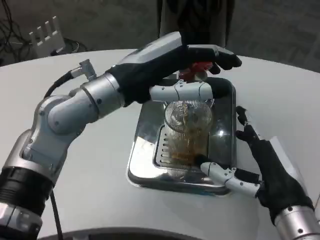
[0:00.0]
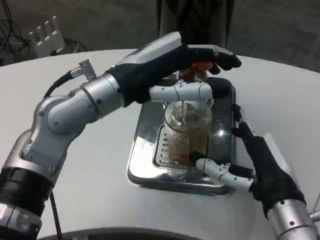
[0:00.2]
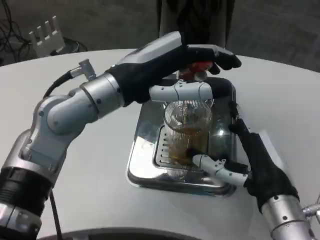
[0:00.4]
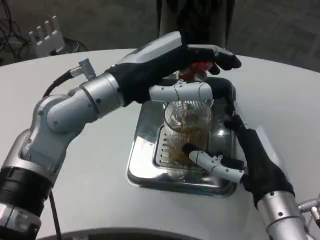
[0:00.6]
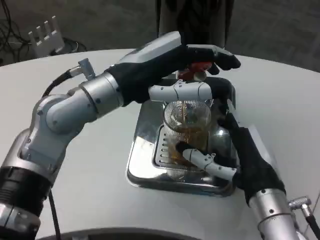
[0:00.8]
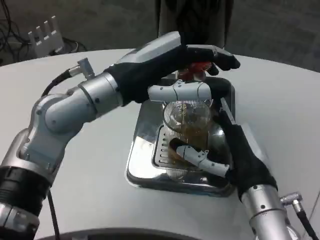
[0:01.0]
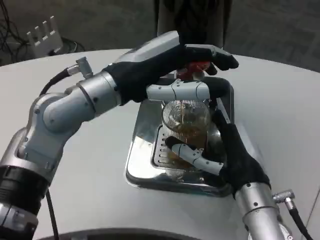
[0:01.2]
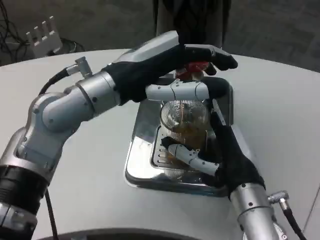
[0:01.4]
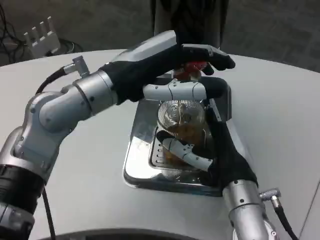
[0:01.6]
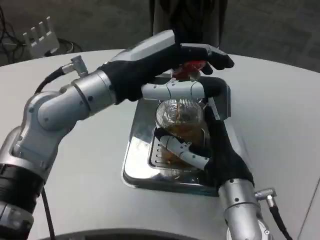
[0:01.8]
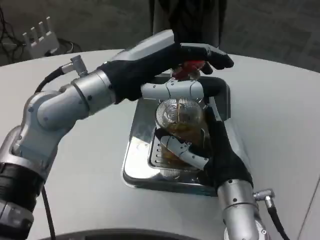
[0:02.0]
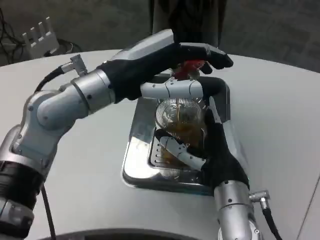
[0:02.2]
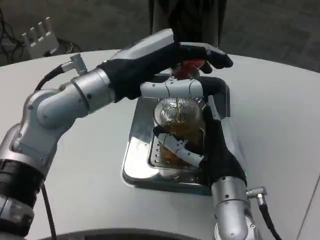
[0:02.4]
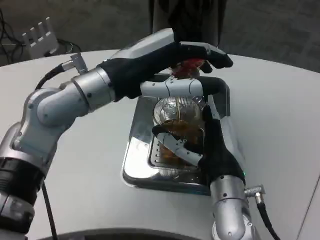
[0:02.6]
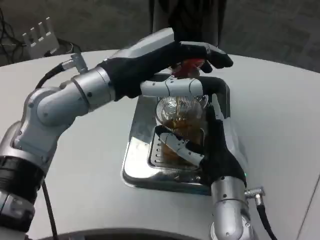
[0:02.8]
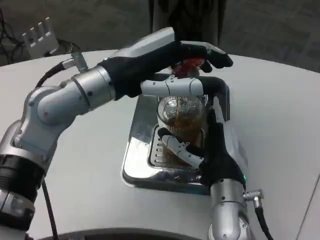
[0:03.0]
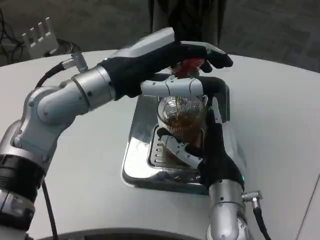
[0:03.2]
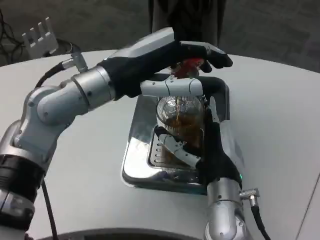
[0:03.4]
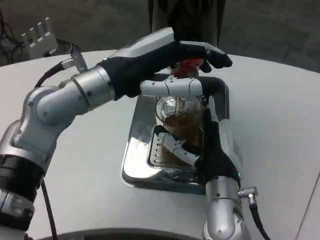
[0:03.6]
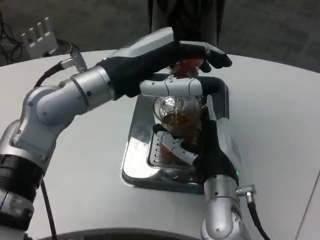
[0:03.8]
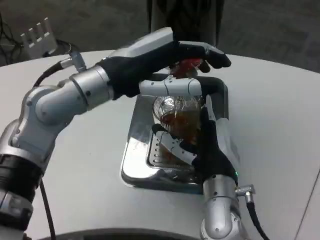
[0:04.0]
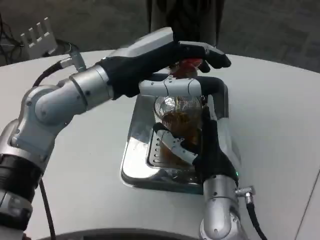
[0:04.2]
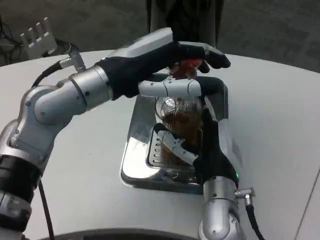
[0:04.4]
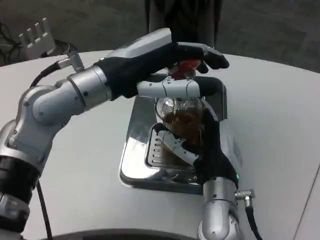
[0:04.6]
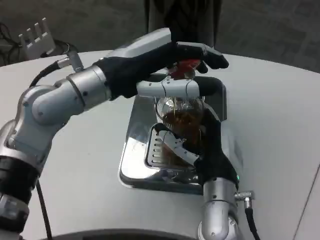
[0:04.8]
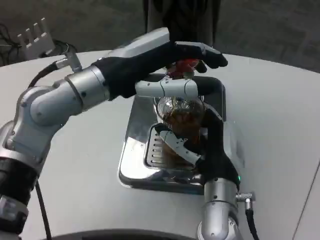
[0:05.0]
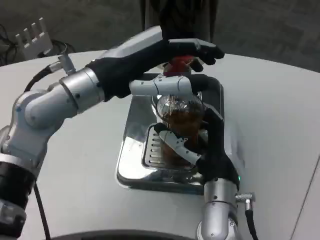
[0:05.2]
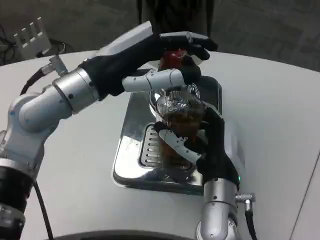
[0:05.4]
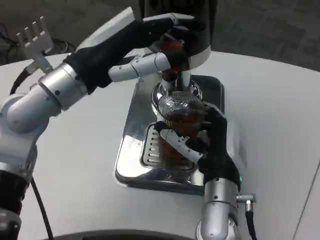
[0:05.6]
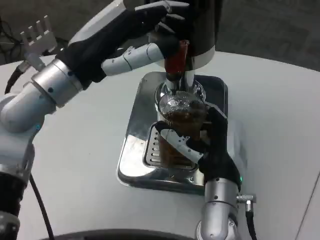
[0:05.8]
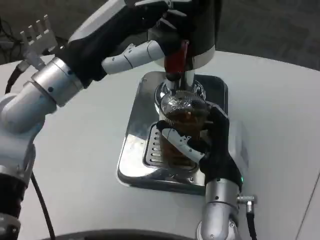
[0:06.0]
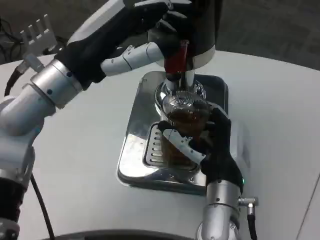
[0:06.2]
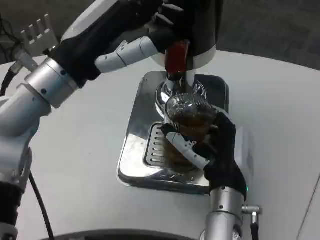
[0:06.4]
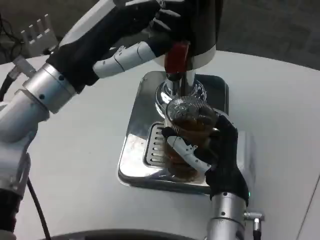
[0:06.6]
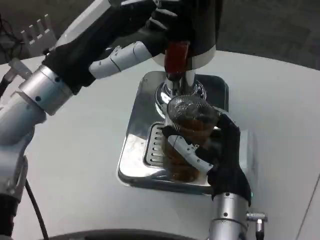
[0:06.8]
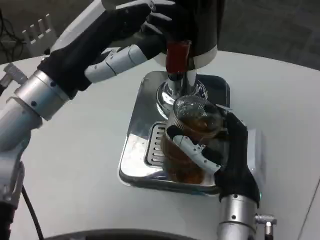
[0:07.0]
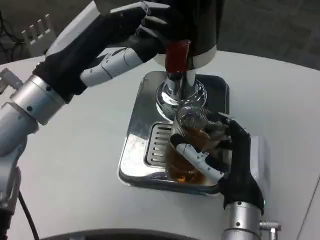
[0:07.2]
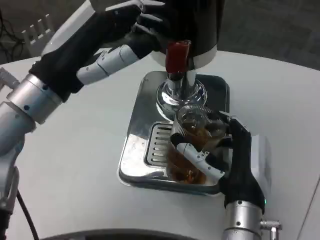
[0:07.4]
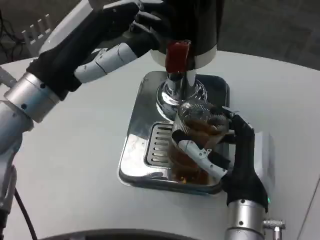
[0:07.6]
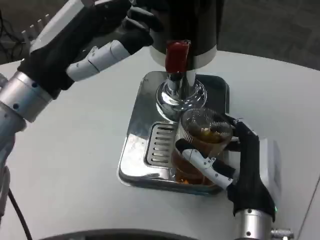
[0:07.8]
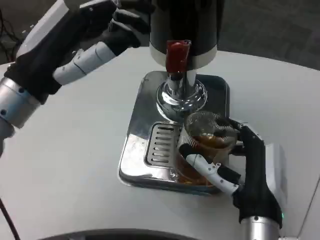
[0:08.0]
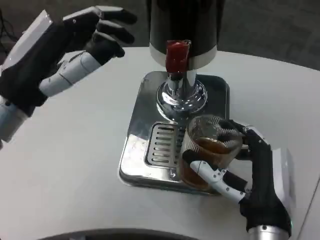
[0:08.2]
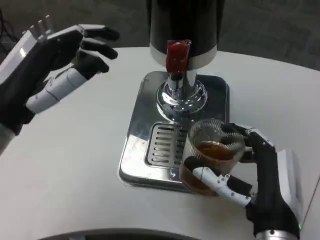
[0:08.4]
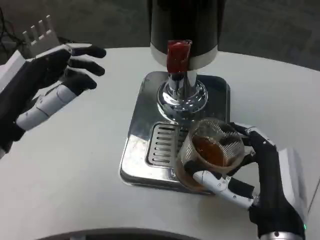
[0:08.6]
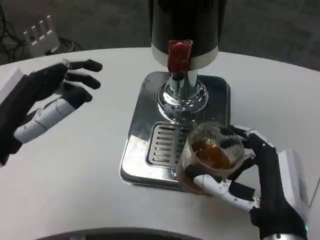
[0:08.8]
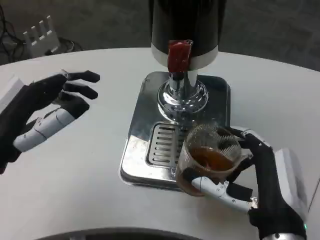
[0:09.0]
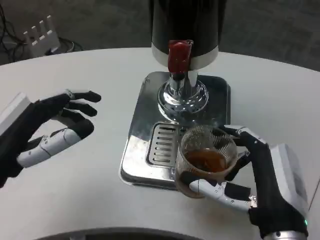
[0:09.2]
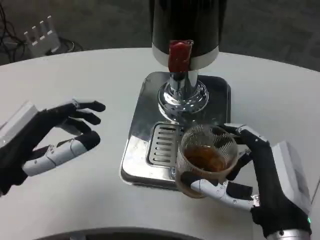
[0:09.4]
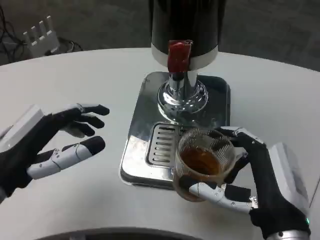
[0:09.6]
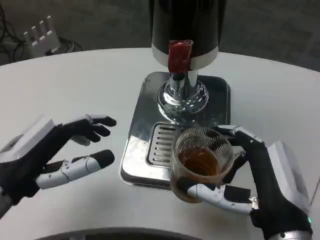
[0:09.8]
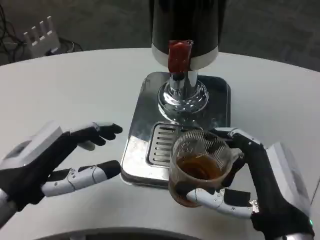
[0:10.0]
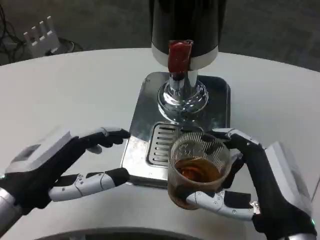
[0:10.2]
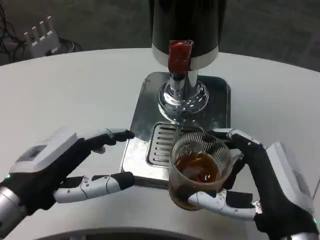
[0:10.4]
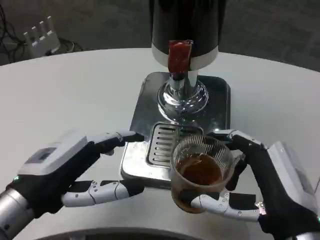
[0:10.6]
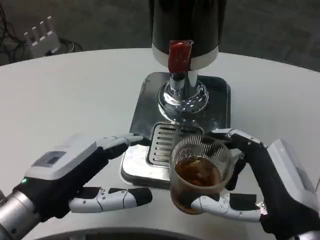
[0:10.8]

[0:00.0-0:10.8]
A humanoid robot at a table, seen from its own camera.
Task of the whole recording: Grasp the cup under the faucet to collect the drink, then remove the cup.
0:00.0 to 0:01.6: The right hand goes some 10 cm to the left and forward.
0:03.0 to 0:04.6: The hands make only small movements.
0:06.2 to 0:07.8: The right hand shifts by roughly 5 cm.
0:07.8 to 0:09.2: The right hand shifts by about 5 cm. The left hand travels downward, backward and to the left by roughly 10 cm.

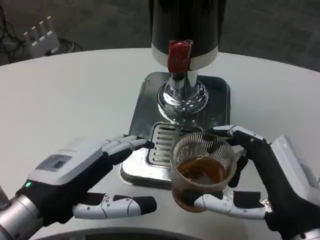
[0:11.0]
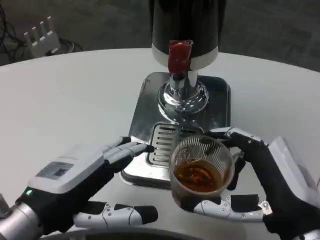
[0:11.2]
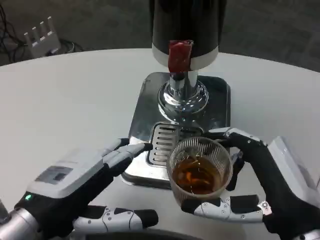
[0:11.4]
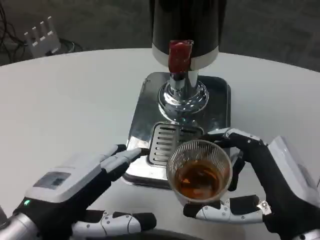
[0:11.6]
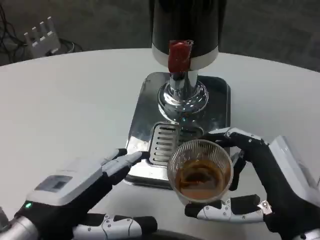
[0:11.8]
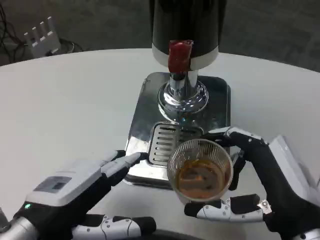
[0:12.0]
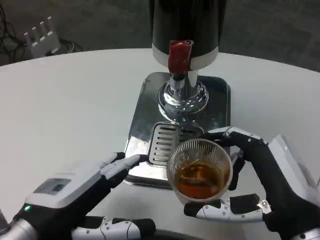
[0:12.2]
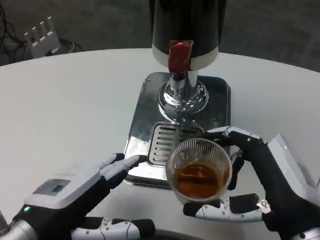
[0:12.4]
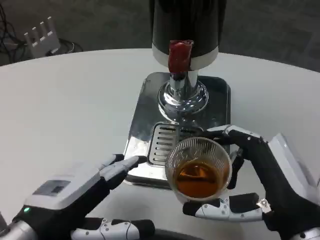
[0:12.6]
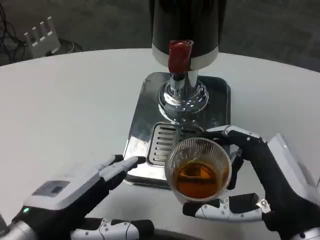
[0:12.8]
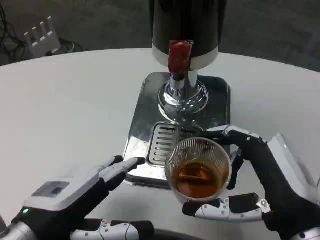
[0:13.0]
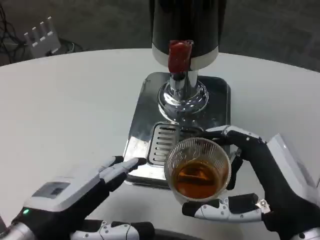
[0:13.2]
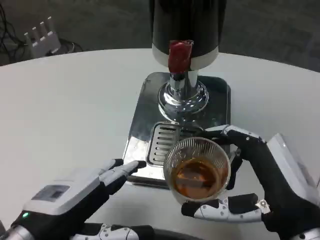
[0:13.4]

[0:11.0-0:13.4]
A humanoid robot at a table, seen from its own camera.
Task of the whole recording: Grasp the cup under the faucet to collect the drink, then remove the cup.
0:11.0 to 0:12.2: There are only small adjustments of the hands.
0:12.2 to 0:13.4: The two hands keep their place.

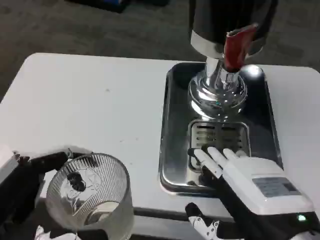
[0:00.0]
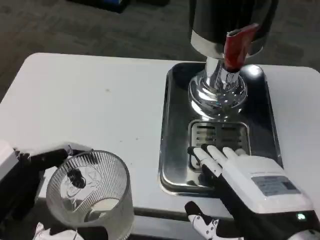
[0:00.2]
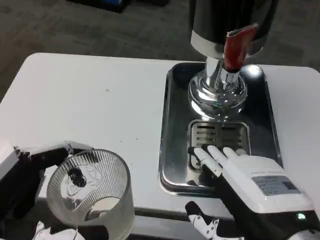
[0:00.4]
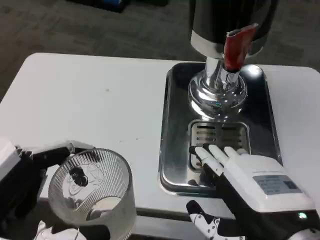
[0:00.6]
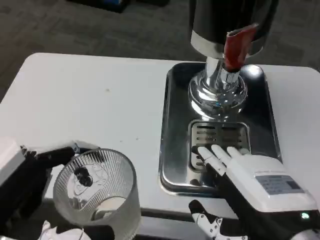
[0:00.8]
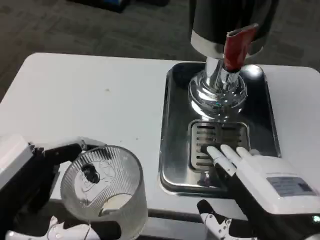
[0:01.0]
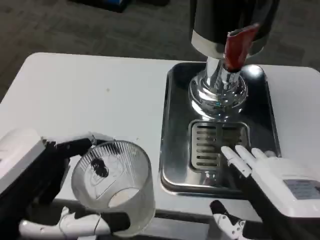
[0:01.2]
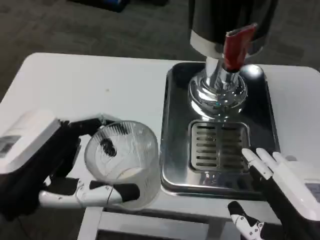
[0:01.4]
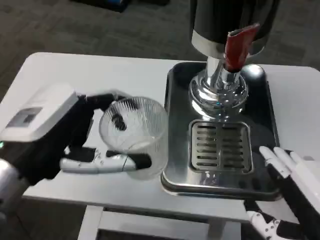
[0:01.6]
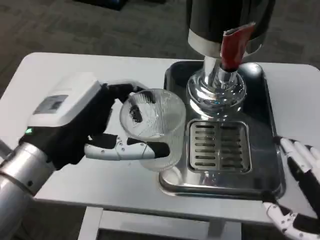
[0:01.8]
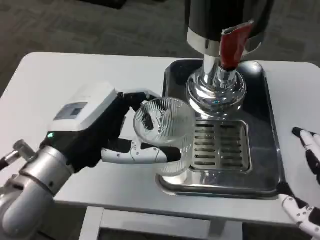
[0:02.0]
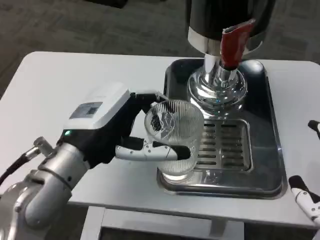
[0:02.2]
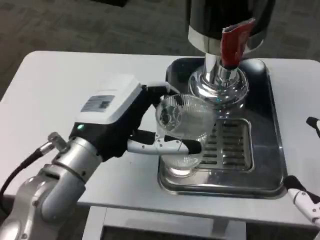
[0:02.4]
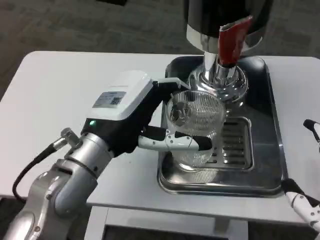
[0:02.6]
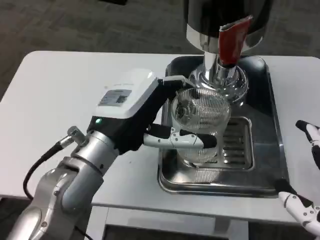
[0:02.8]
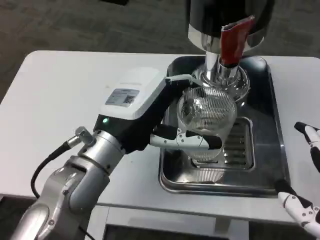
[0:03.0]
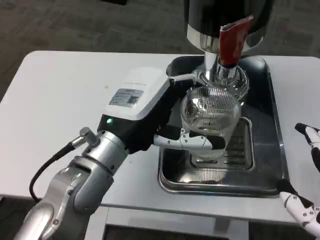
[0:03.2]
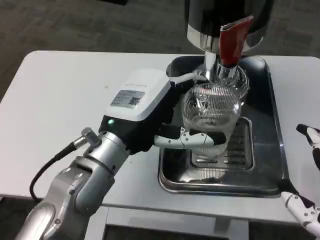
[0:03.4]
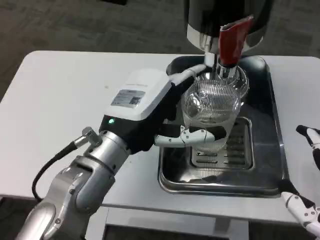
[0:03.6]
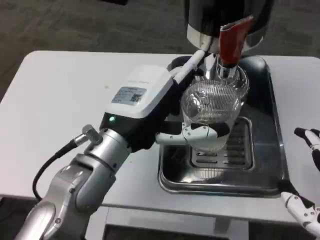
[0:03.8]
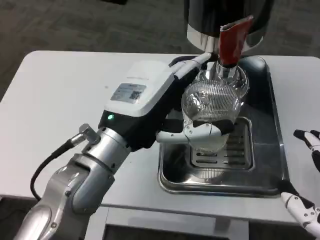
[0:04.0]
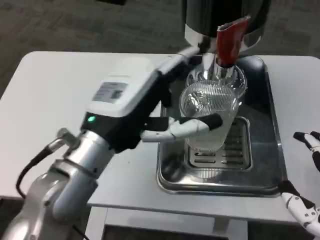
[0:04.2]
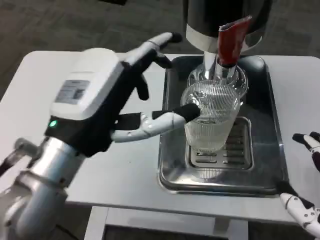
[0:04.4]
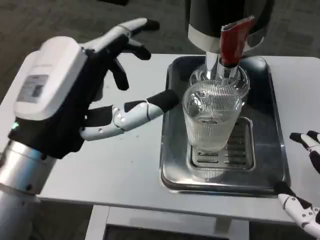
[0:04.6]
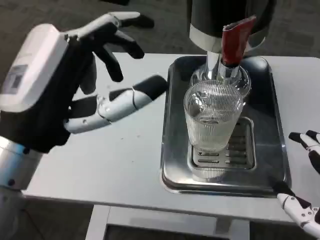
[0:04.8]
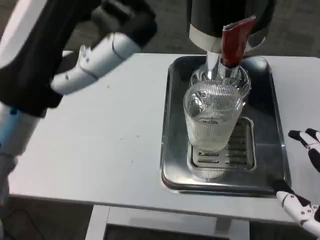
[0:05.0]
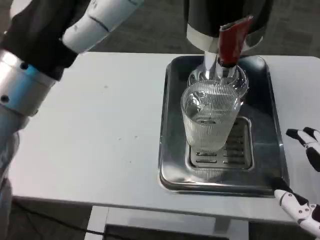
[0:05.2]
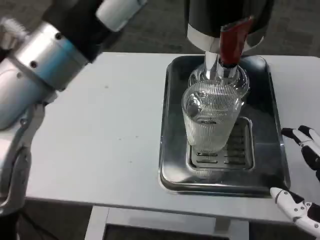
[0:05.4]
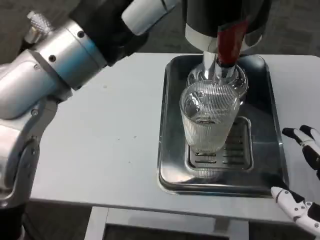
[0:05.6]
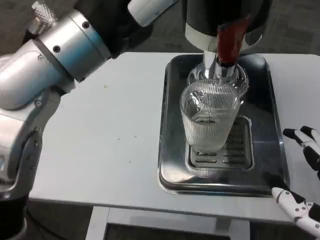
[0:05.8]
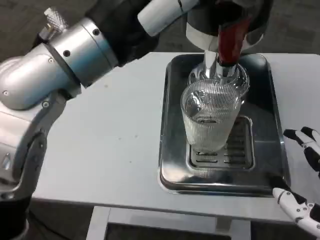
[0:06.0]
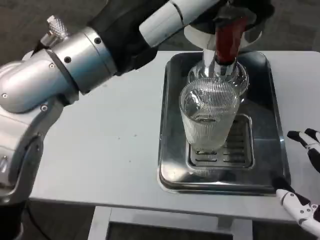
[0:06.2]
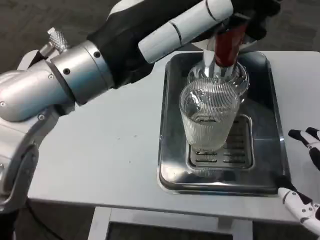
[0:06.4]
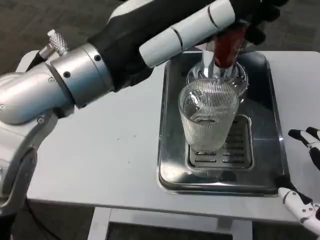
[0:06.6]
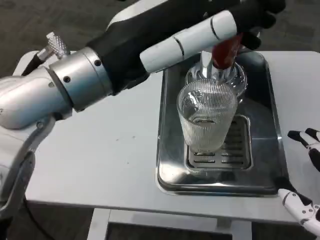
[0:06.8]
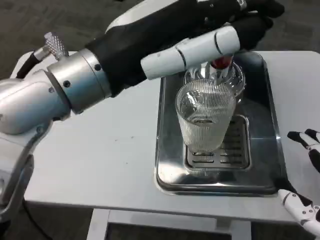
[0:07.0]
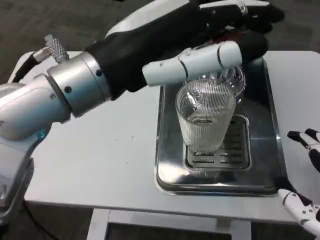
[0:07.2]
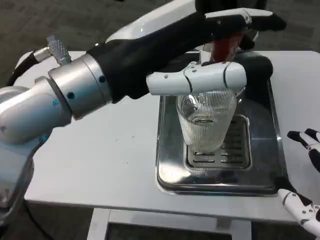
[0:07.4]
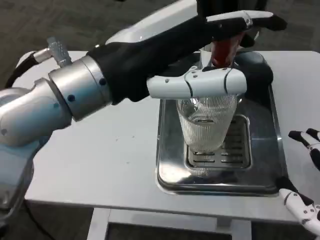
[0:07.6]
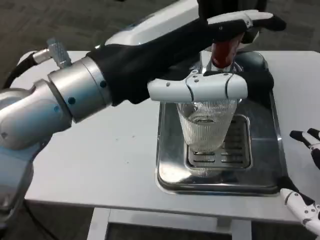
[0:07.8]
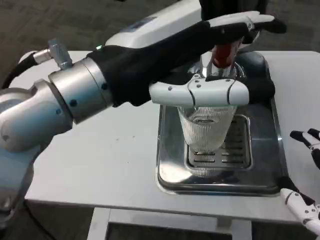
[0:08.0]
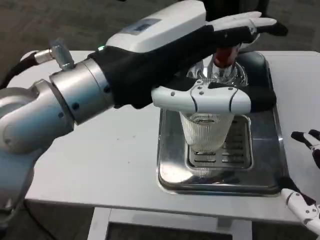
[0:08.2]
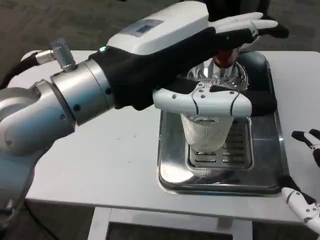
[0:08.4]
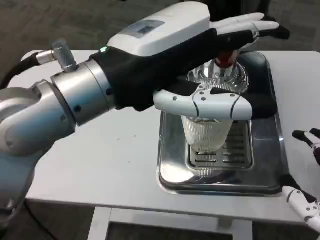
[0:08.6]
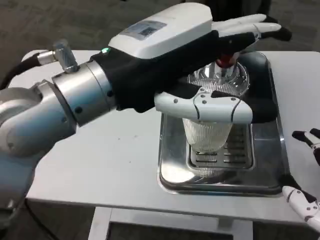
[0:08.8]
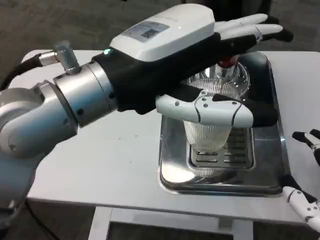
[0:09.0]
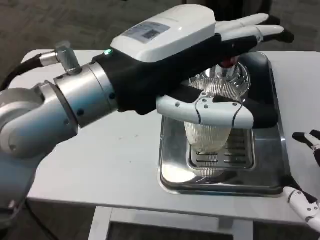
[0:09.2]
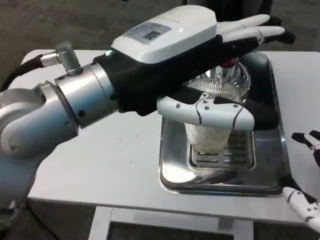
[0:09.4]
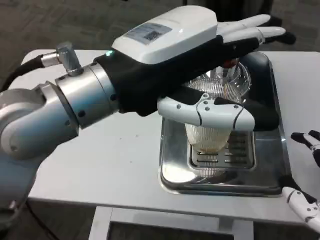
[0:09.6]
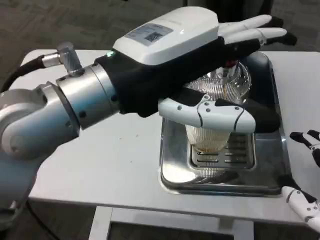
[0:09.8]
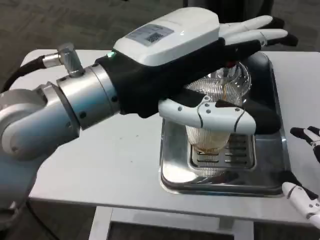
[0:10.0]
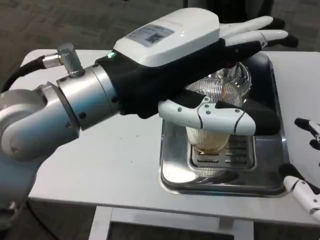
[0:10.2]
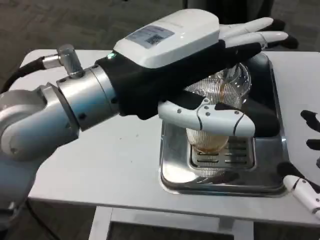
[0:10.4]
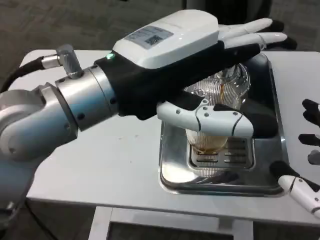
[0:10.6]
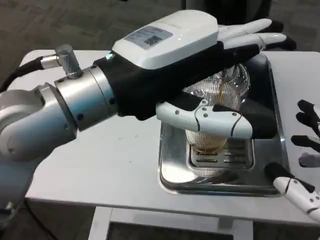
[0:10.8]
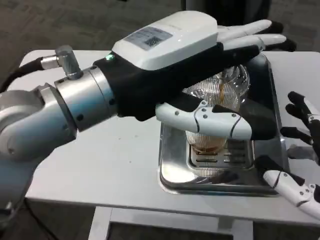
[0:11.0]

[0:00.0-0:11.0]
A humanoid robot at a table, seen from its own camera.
Task of the whole recording: Grasp the cup under the faucet to collect the drink, then remove the cup.
0:00.0 to 0:01.6: The left hand travels forward by some 10 cm.
0:01.6 to 0:03.2: The left hand shifts approximately 10 cm to the right and forward.
0:03.2 to 0:04.8: The left hand travels backward and to the left by some 10 cm.
0:04.8 to 0:06.2: The left hand heads upward, covering approximately 10 cm.
